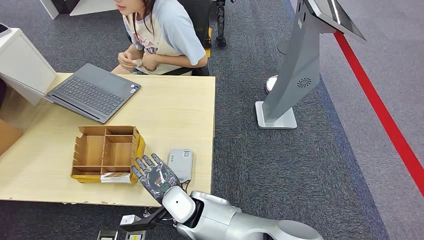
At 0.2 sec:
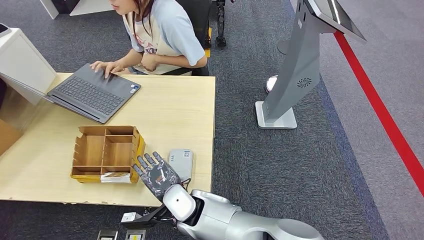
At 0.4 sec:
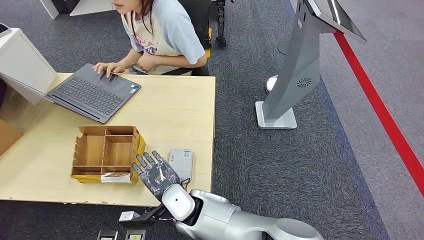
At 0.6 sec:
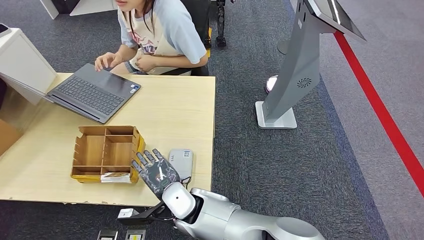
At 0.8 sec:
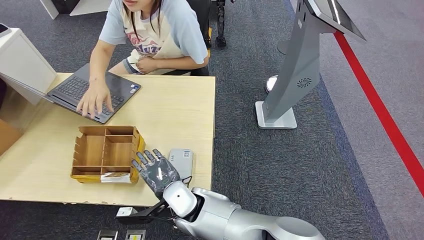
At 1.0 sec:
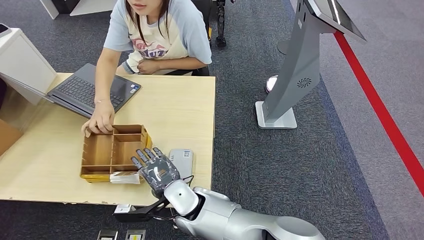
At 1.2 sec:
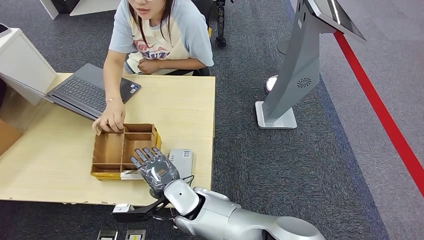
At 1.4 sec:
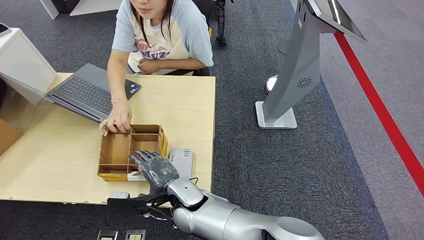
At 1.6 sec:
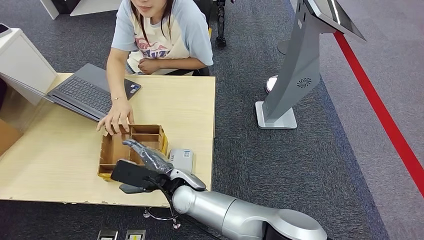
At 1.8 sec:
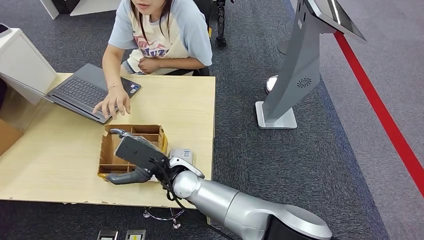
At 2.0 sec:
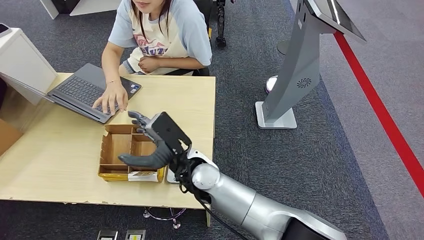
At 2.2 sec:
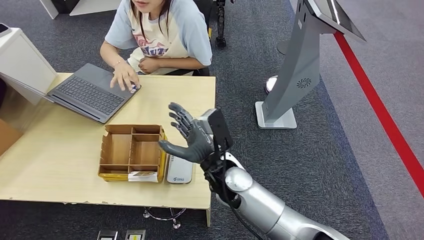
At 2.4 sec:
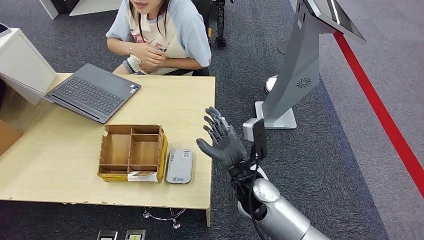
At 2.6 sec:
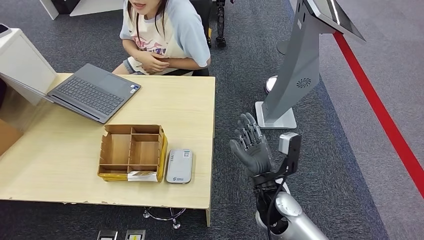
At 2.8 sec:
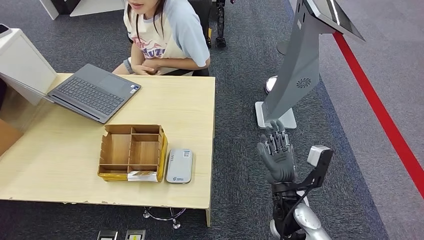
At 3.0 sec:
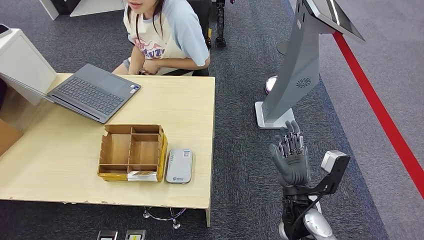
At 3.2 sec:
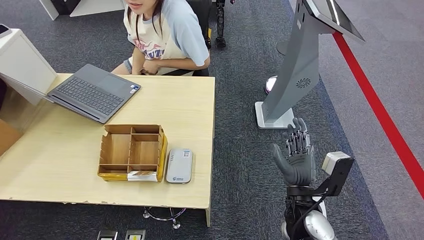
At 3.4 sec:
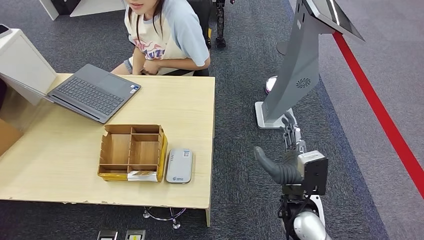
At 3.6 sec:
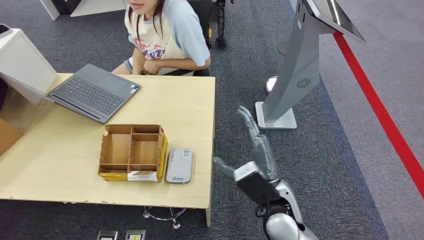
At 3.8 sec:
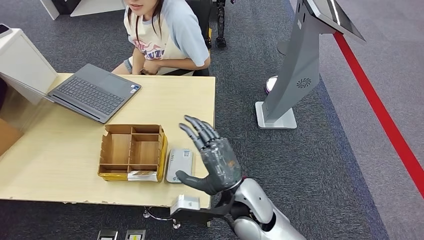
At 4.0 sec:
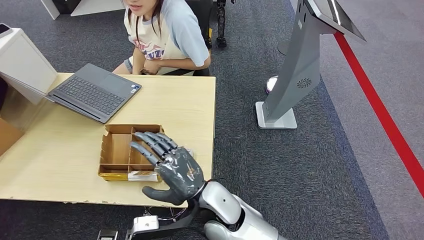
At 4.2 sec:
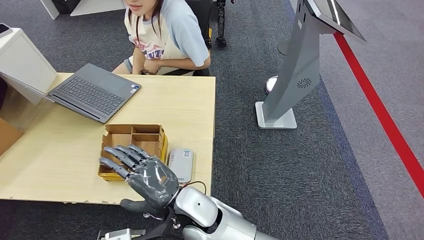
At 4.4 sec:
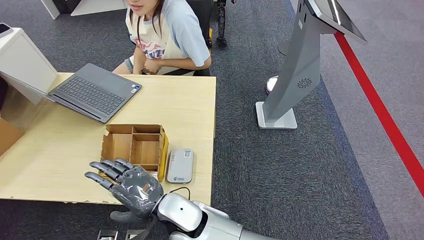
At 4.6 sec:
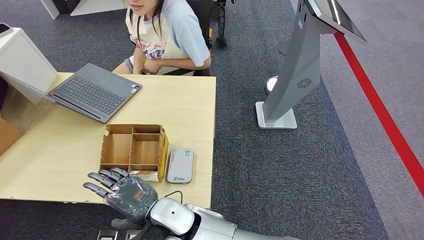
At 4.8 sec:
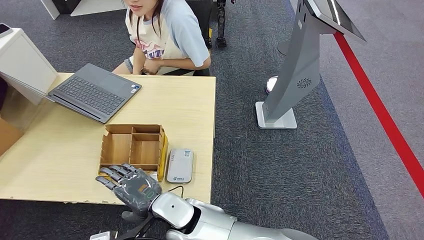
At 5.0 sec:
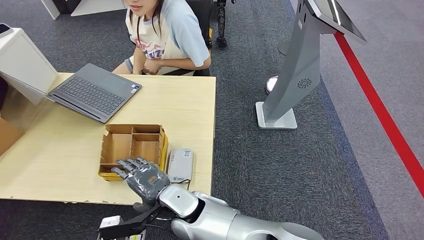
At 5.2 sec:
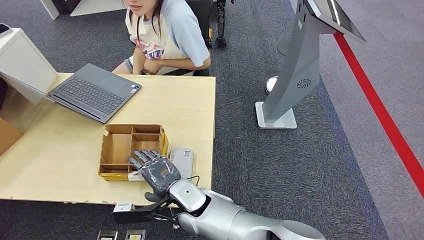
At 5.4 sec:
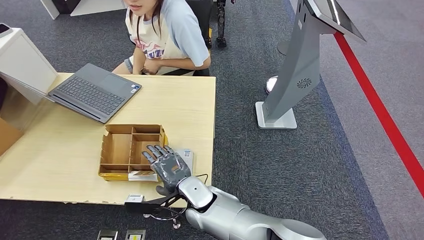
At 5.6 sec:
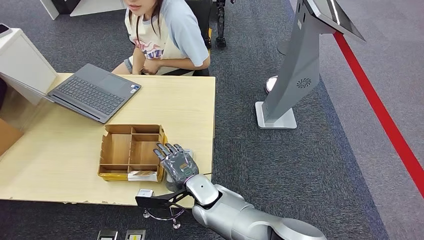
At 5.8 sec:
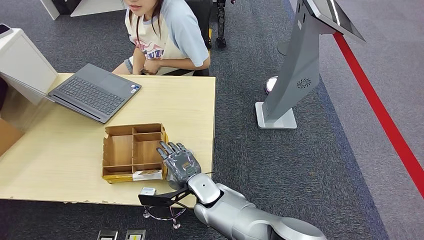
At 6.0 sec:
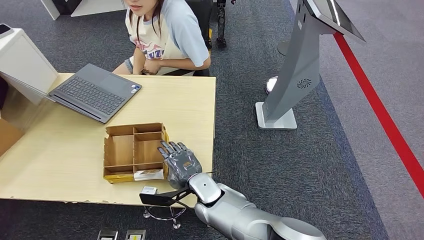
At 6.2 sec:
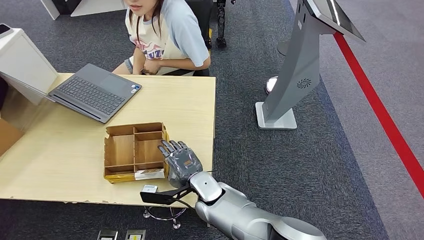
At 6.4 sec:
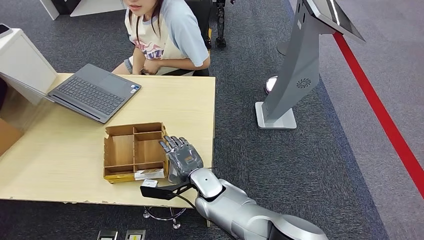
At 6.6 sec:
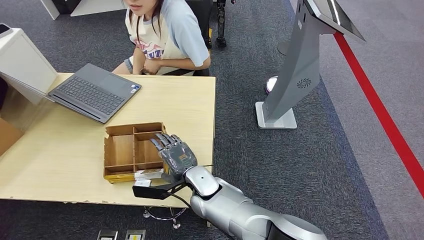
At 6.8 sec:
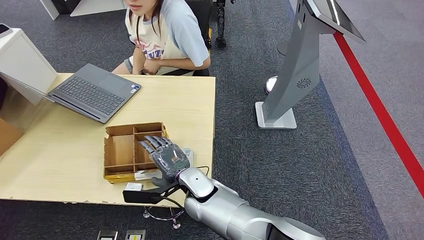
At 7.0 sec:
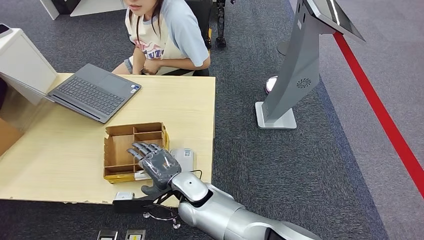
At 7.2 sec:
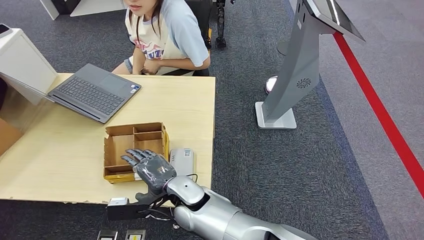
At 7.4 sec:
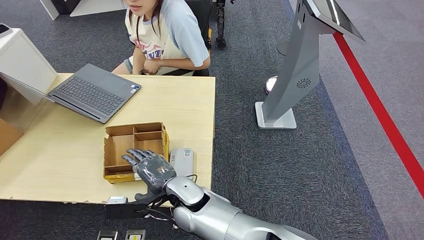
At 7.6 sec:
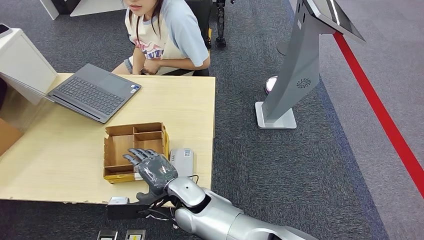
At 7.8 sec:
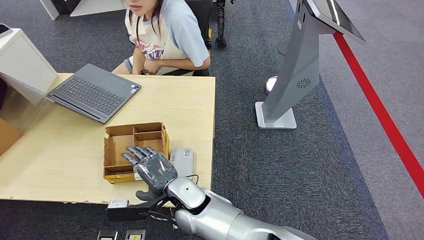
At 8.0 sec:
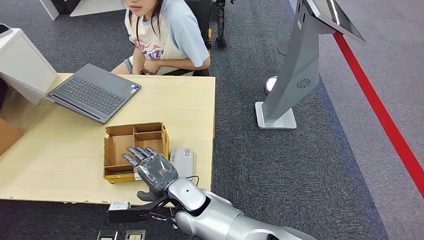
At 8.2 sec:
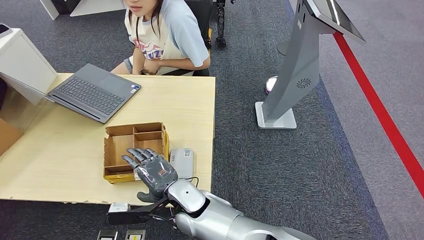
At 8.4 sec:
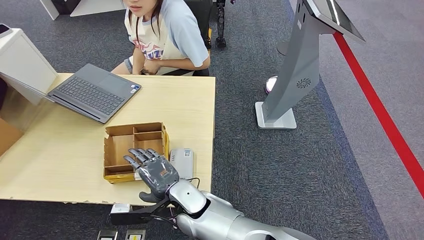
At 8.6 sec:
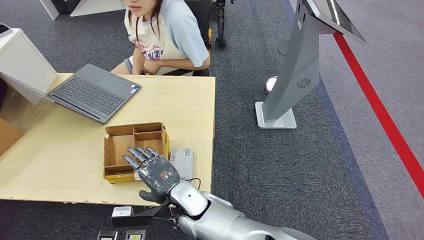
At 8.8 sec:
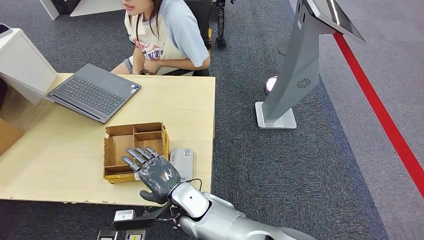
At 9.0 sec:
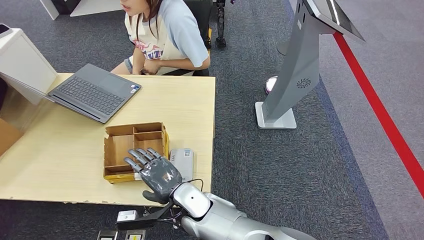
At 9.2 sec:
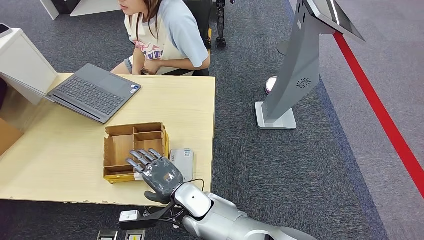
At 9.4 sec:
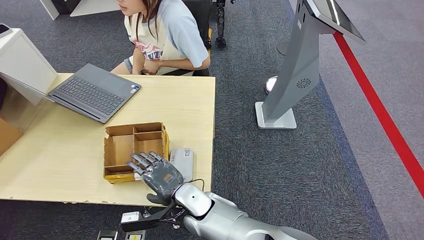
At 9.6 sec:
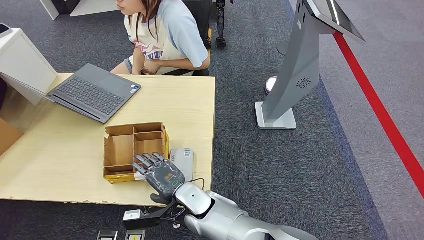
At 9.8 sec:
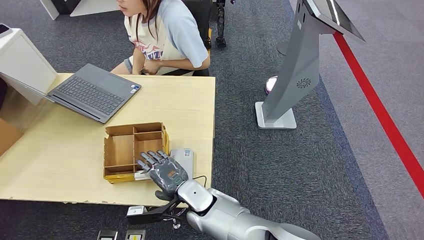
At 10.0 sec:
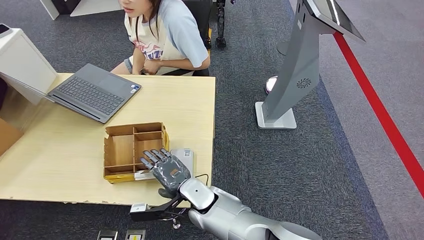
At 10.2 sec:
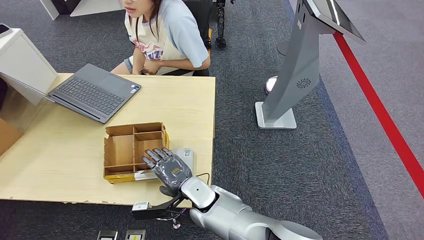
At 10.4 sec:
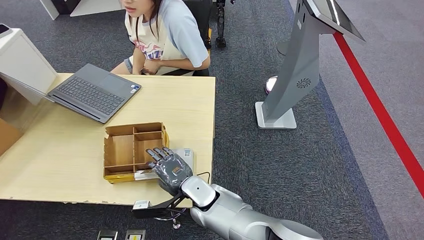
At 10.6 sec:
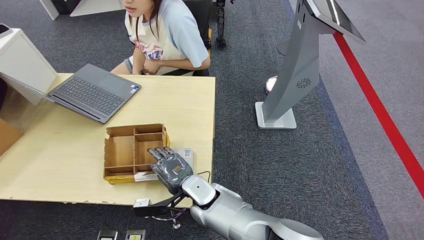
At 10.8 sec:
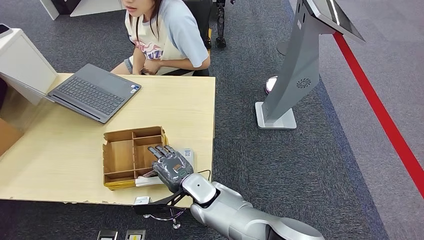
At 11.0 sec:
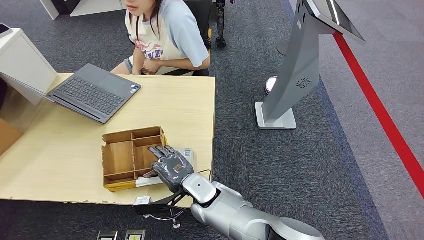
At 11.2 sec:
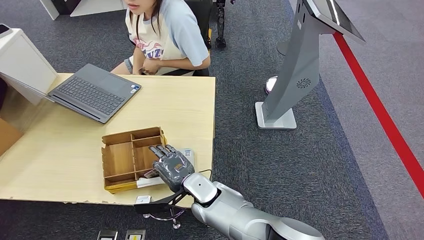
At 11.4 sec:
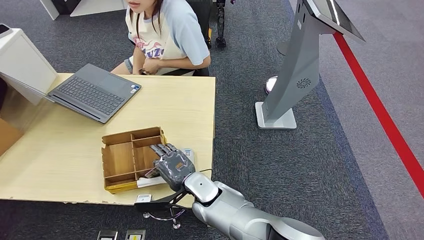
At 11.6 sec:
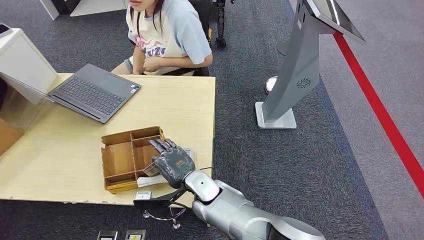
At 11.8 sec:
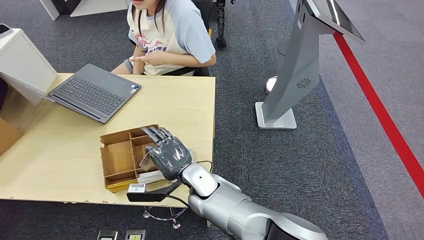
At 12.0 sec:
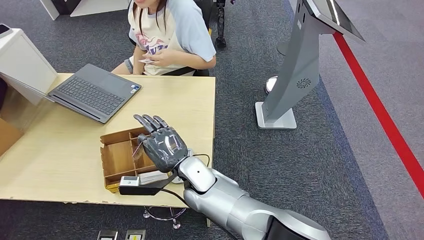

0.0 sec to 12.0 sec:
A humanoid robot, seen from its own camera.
Step, 0.0 sec to 12.0 sec: Pick up the room key from the key card box.
1.6 sec to 3.0 sec: The right hand goes some 25 cm to the right.
3.0 sec to 4.4 sec: The right hand shifts about 25 cm to the left.
4.4 sec to 6.0 sec: The right hand shifts roughly 10 cm forward, downward and to the right.
6.0 sec to 7.6 sec: The right hand moves about 5 cm.
7.6 sec to 10.4 sec: The hands move only a little.
10.4 sec to 12.0 sec: The right hand travels upward by roughly 5 cm.

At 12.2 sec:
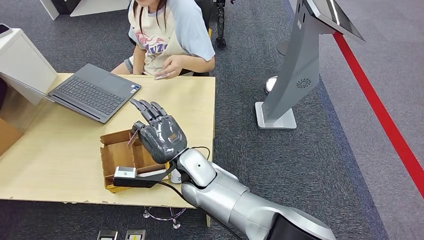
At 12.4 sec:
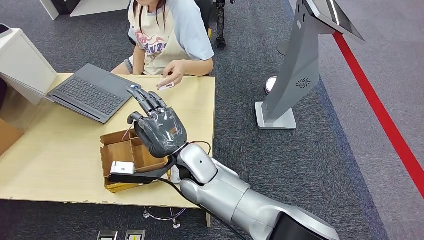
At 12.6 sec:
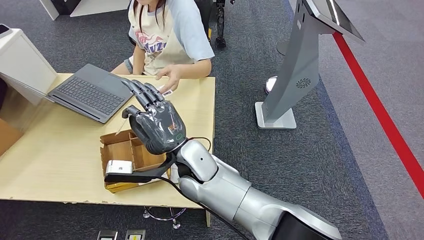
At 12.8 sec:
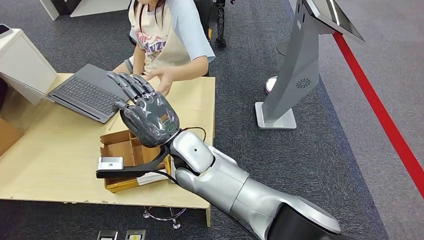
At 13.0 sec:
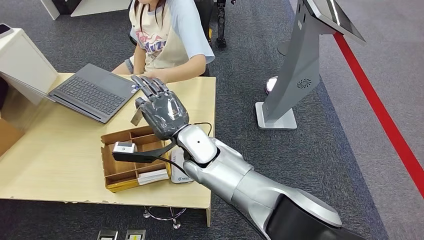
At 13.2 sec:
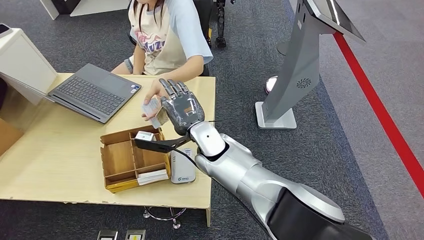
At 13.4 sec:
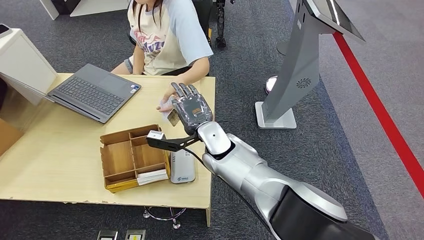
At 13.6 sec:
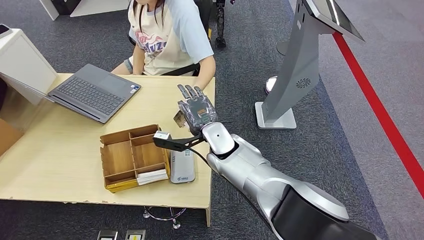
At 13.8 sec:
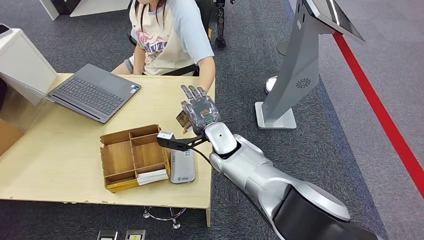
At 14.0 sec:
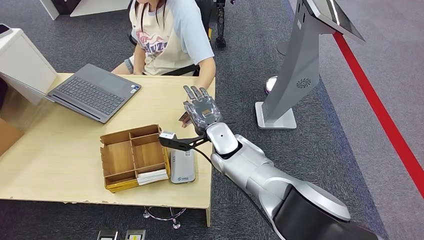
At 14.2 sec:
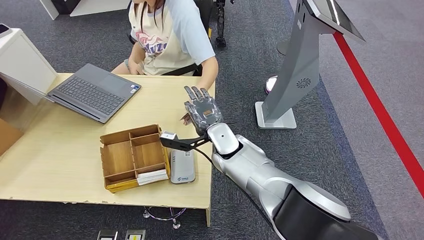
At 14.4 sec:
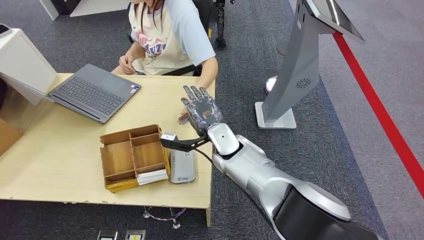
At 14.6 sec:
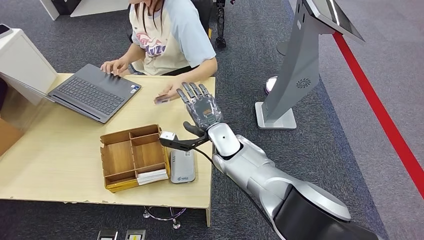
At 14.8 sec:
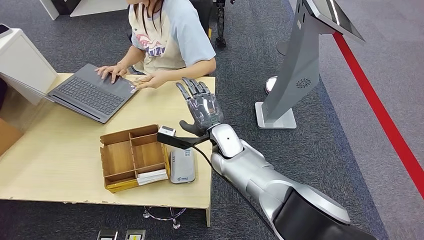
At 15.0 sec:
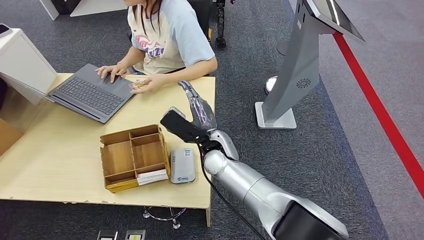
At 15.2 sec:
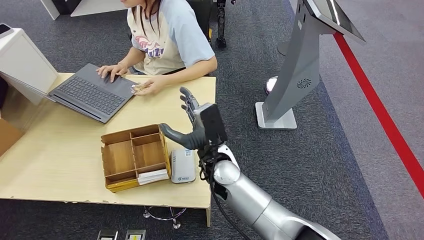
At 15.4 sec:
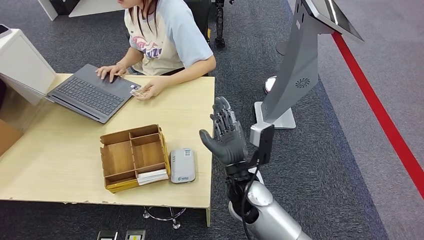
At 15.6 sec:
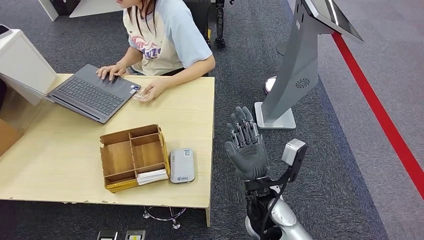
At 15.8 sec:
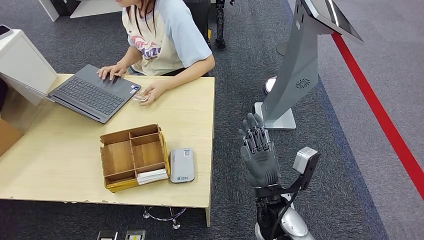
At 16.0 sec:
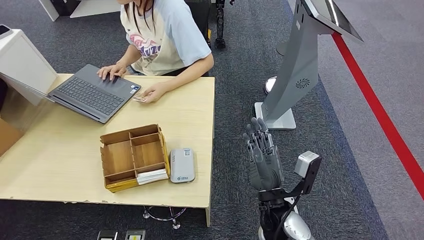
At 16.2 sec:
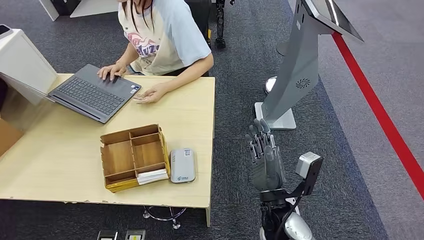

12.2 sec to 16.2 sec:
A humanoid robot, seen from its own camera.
Step, 12.2 sec to 16.0 sec: Hand the room key to the person.
12.2 sec to 13.6 sec: The right hand travels forward and to the right by some 10 cm.
13.6 sec to 14.8 sec: The hands make only small movements.
14.8 sec to 16.2 sec: The right hand shifts some 20 cm backward and to the right.
